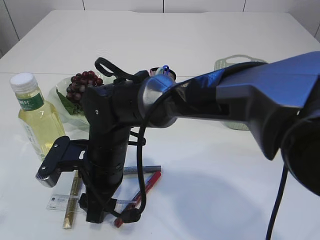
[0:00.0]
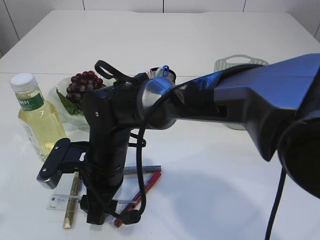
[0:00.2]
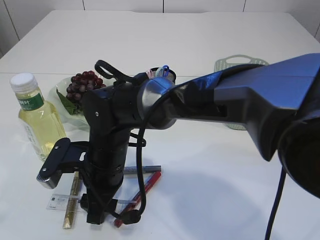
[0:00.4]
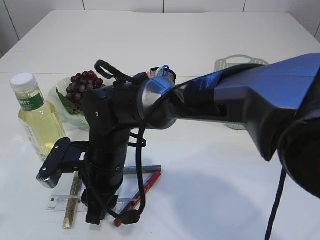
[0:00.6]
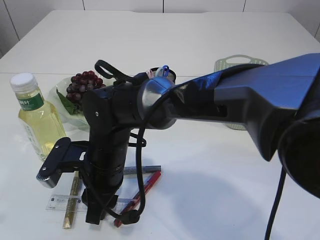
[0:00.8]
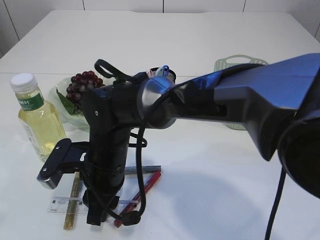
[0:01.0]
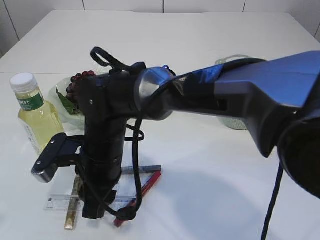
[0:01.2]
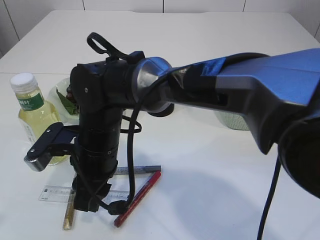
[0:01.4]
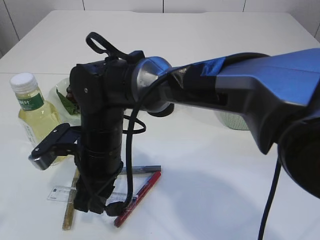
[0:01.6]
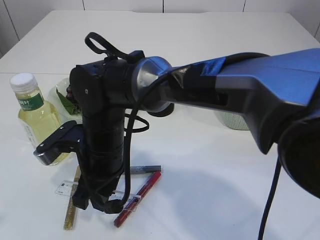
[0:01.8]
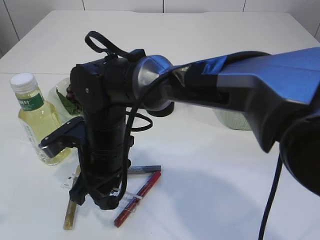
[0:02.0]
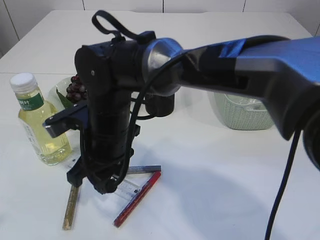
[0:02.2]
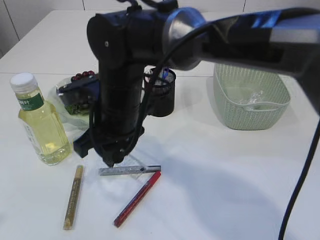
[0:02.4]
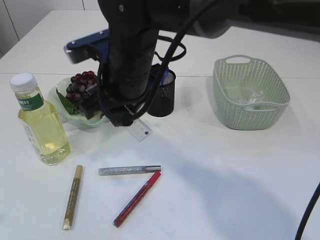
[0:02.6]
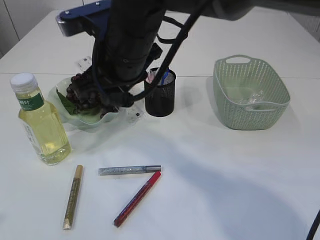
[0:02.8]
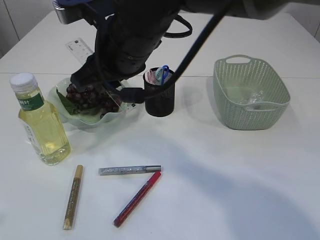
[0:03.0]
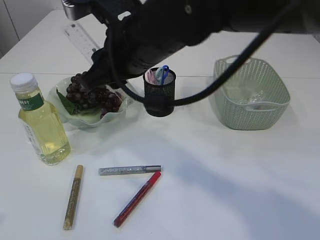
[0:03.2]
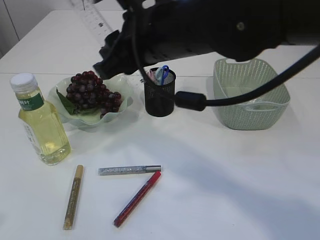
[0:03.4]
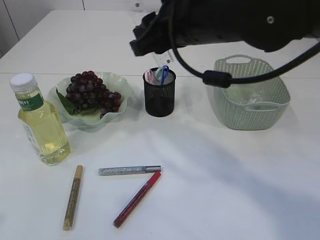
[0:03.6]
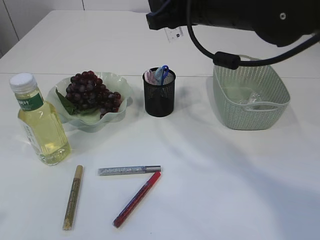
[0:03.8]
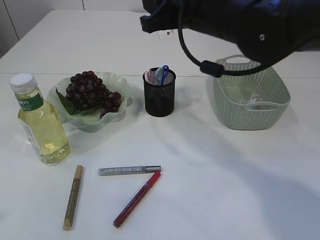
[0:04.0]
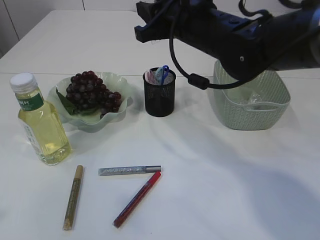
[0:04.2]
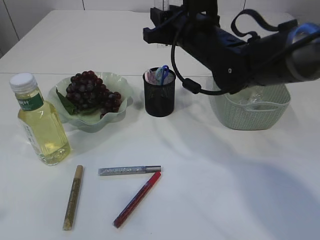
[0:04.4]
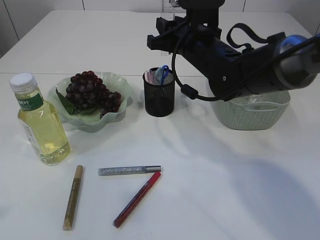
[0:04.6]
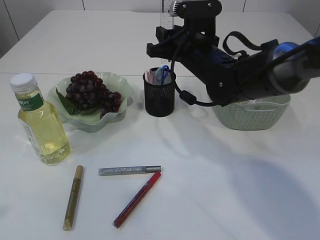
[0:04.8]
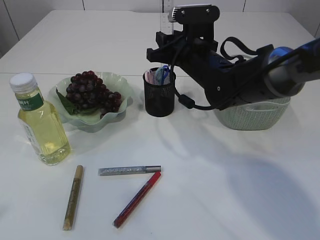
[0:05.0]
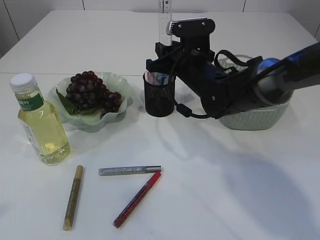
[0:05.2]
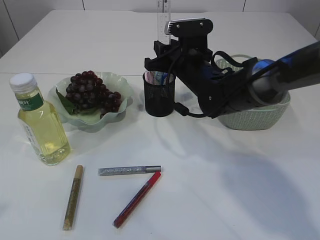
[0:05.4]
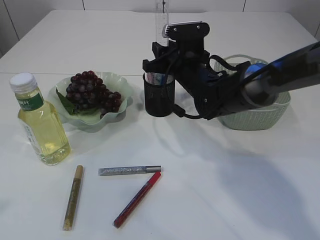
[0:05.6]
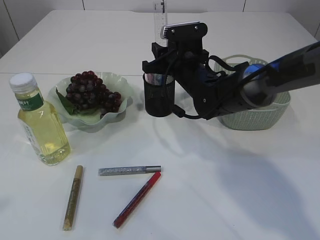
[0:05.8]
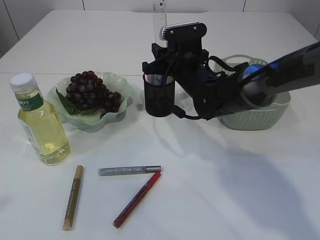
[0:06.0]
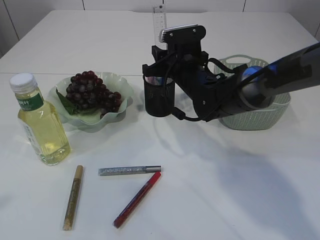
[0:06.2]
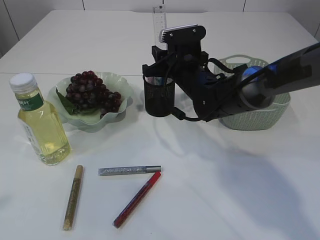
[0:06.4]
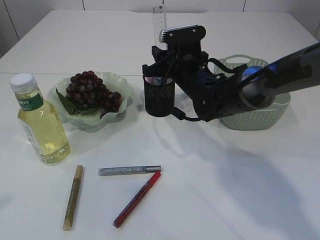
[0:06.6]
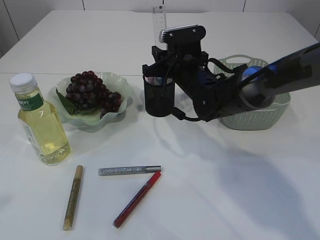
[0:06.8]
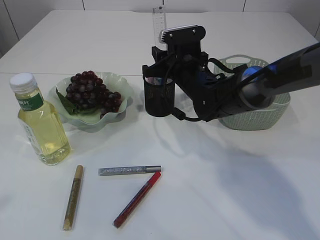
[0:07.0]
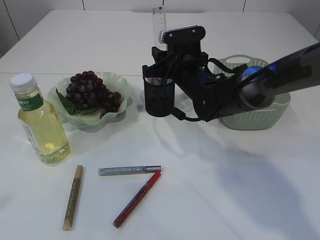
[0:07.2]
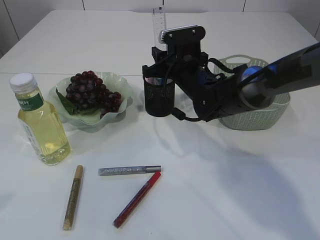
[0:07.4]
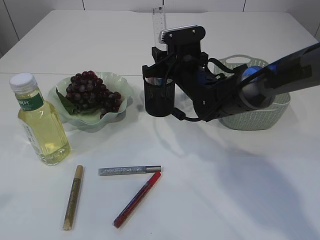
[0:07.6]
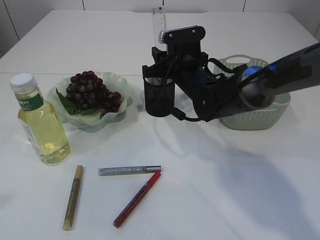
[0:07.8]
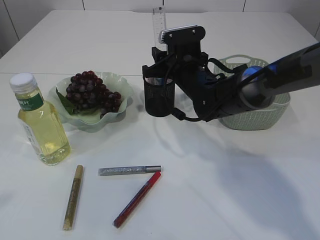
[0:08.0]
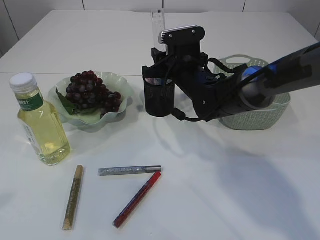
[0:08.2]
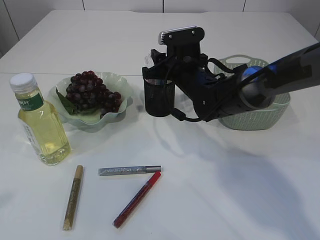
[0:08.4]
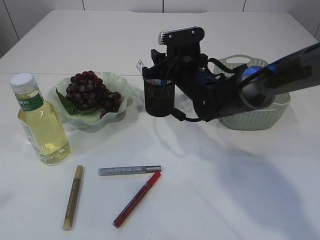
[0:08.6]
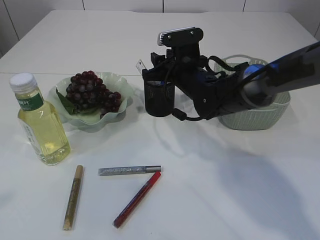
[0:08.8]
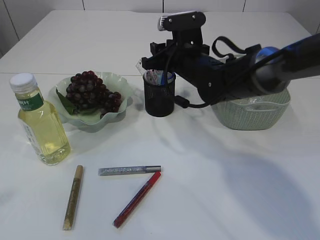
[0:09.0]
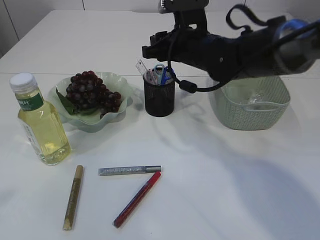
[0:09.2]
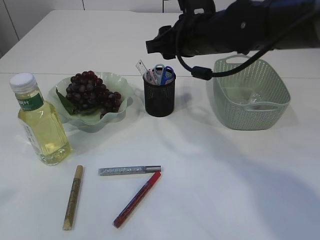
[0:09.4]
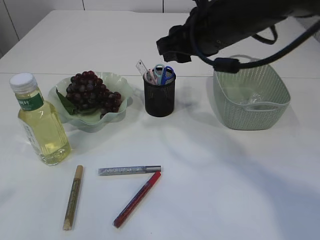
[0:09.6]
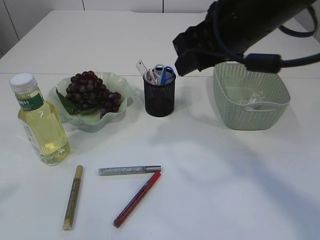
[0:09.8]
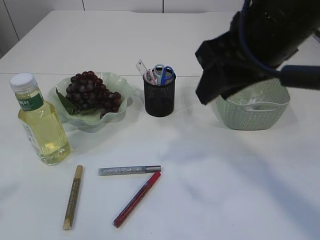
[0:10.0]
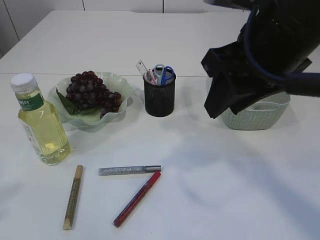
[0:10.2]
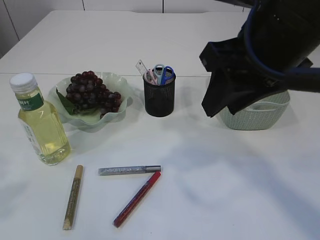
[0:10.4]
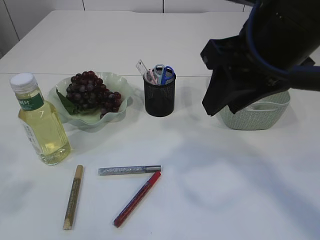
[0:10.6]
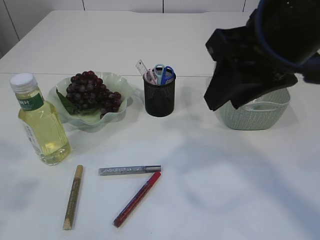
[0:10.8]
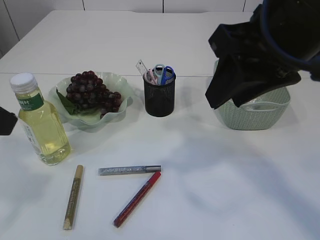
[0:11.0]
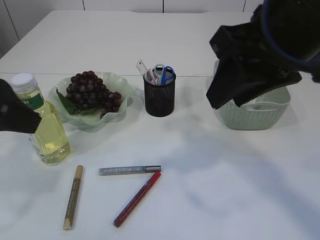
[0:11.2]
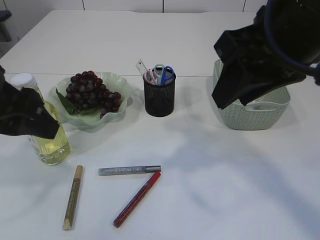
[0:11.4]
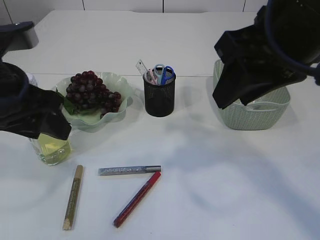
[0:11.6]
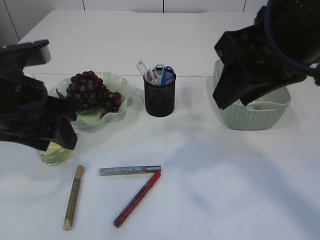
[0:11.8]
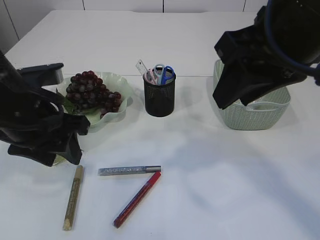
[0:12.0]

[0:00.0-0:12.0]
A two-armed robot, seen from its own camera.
Step, 0:00.0 to 0:02.4: pick up the ruler.
Step, 0:02.6 to 0:09.0: Place the ruler into the pen holder.
0:00.0 to 0:01.6: The right gripper closes.
0:01.6 to 0:03.0: The right gripper heads upward, covering roughly 15 cm.
0:03.0 to 0:04.4: The right gripper travels to the right and forward by about 15 cm.
0:04.4 to 0:06.0: The right gripper shifts about 10 cm downward.
0:06.0 to 0:07.6: Neither gripper changes place.
0:07.6 to 0:09.0: The grippers make only small movements.
0:09.0 to 0:10.4: The right gripper is displaced backward and upward by some 25 cm.
0:10.4 to 0:12.0: The left gripper is displaced downward, forward and to the right by about 20 cm.

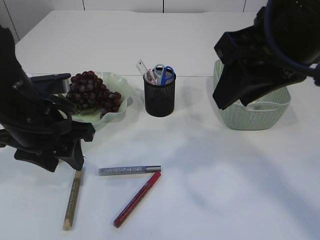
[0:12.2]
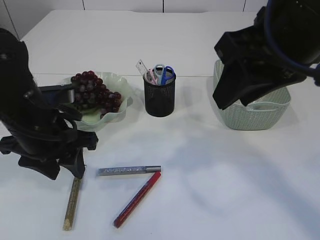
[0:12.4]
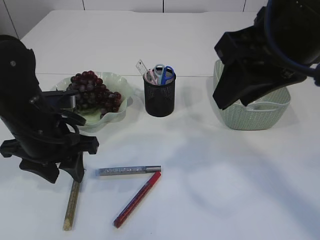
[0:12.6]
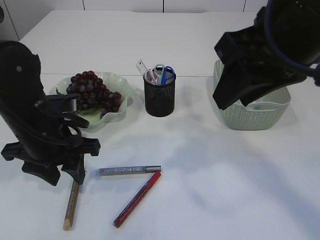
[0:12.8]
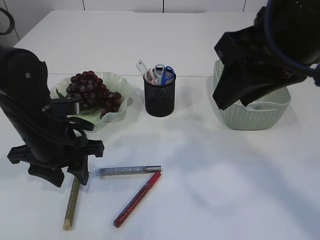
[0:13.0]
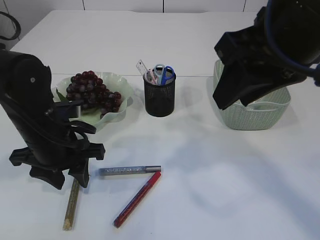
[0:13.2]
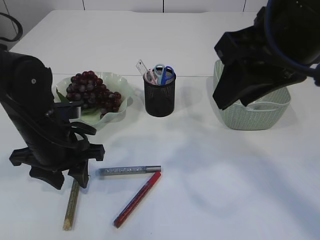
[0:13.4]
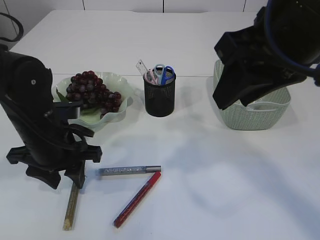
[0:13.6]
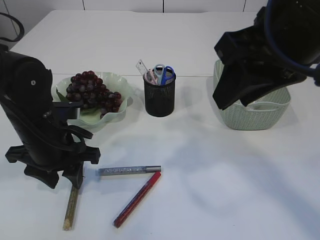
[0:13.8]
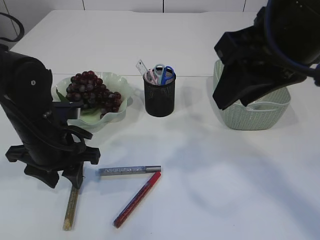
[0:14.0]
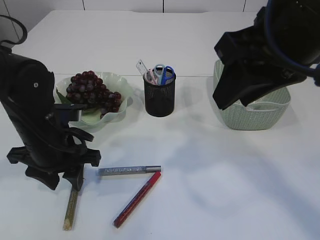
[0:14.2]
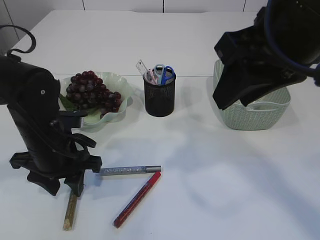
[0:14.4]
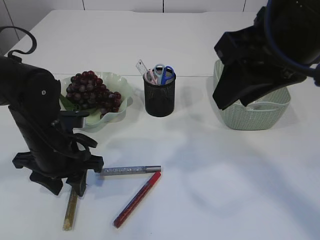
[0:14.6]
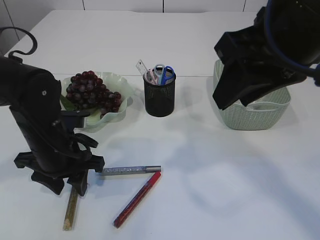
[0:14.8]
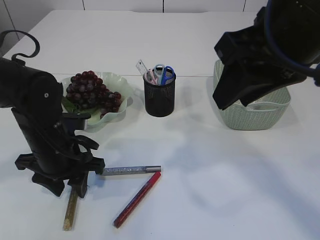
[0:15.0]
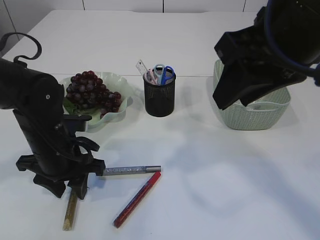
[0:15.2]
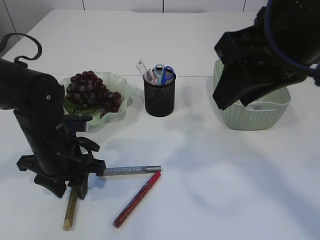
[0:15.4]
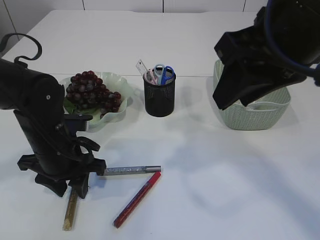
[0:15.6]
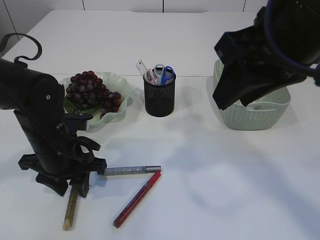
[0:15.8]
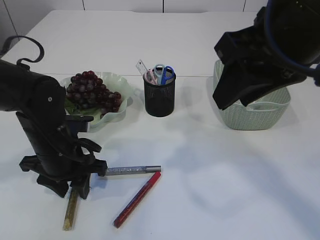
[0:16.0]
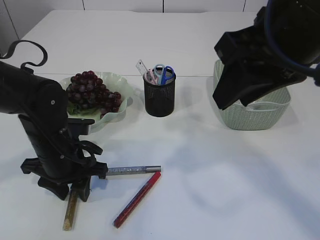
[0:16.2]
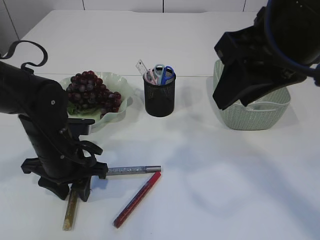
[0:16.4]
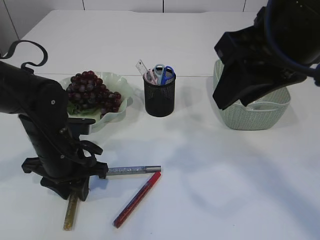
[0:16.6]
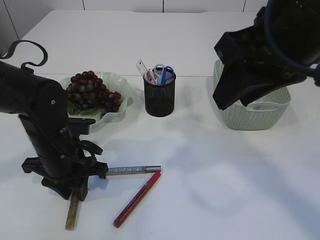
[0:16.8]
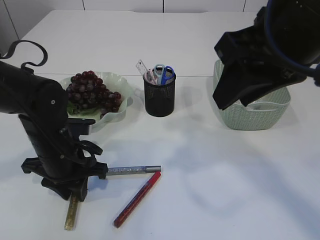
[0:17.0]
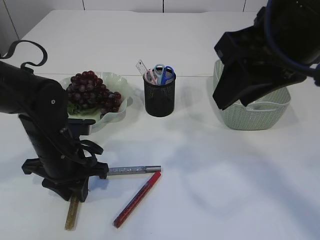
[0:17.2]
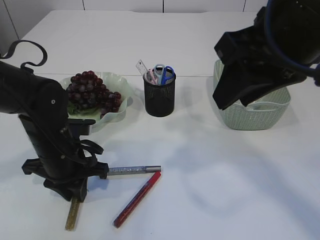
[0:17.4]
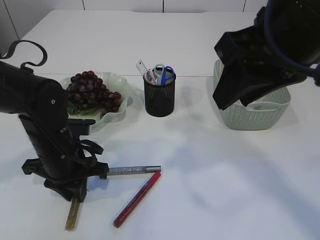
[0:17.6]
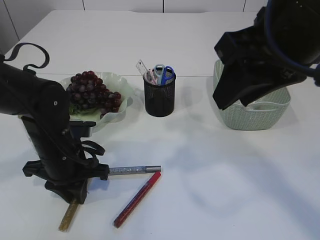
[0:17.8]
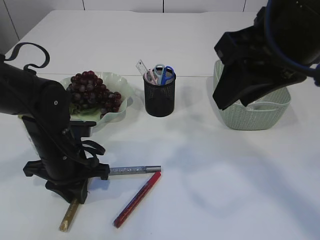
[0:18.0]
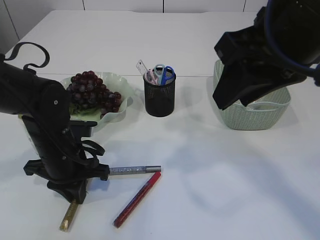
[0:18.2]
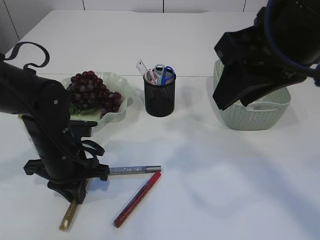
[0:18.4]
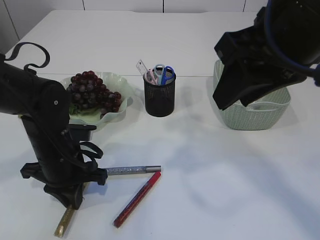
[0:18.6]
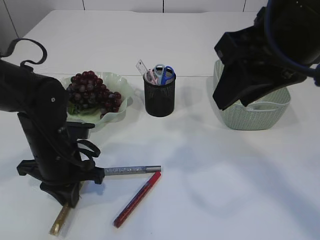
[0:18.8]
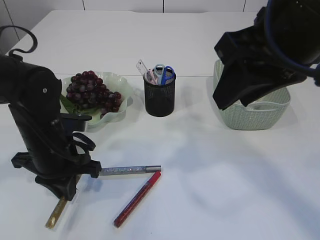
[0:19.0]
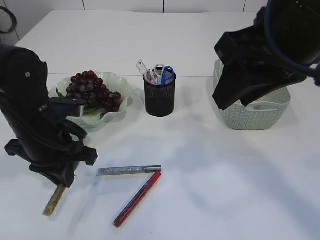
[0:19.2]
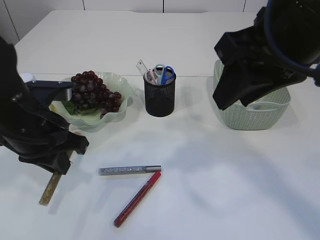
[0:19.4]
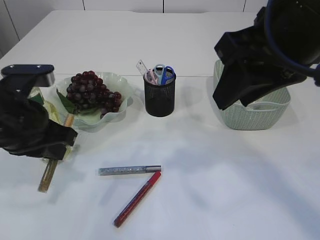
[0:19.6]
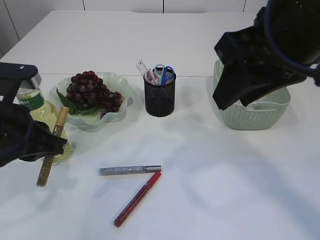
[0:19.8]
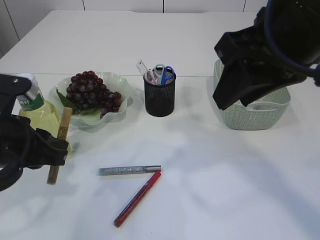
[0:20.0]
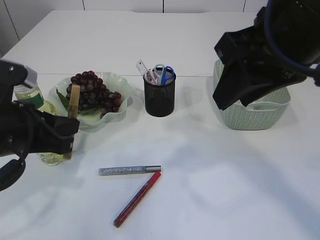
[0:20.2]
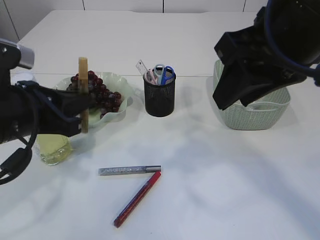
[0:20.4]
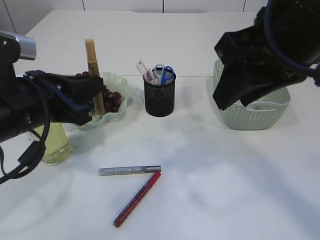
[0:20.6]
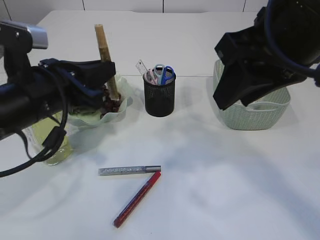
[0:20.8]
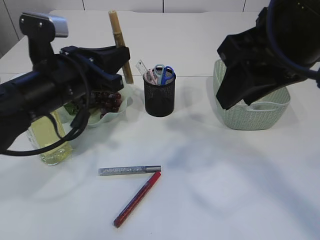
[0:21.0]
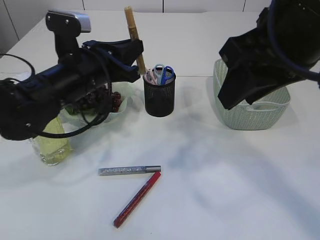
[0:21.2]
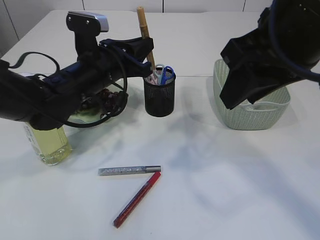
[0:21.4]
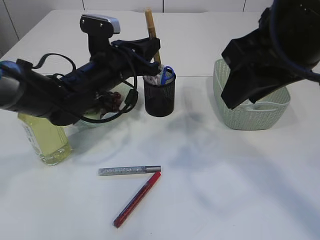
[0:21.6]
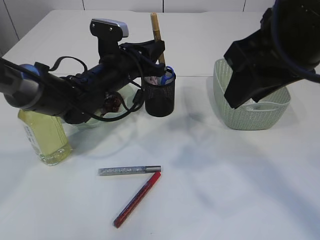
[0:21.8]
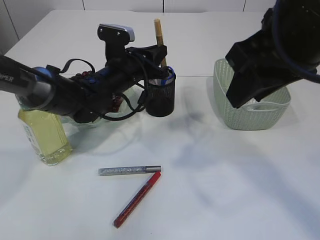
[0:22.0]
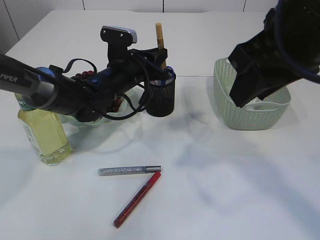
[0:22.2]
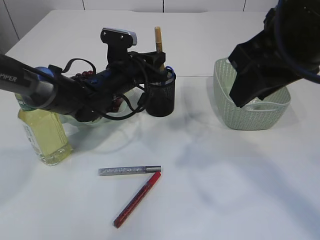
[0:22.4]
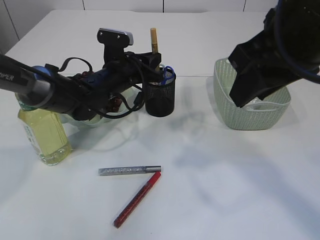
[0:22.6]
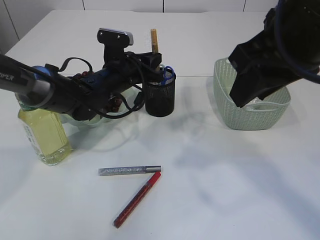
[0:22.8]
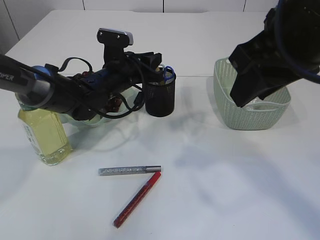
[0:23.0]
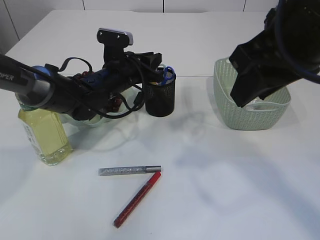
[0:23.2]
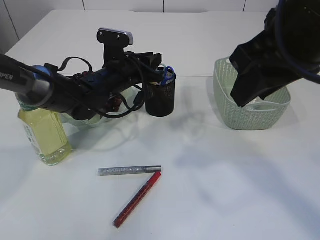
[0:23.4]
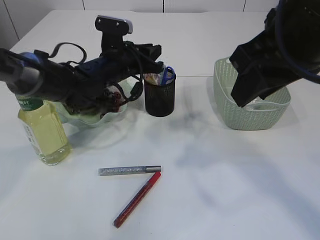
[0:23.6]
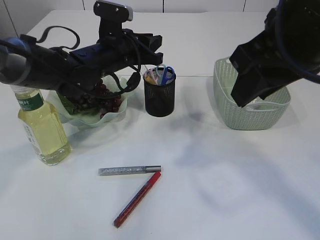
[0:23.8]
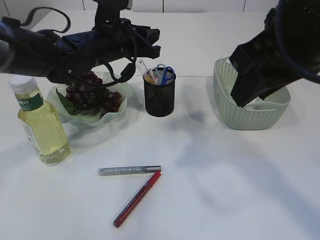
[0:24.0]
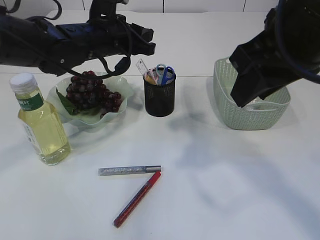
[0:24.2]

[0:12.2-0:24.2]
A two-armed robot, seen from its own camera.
Step, 0:12.2 to 0:19.4: pick up the yellow glue.
0:12.2 to 0:13.8: The left gripper moves downward, about 5 cm.
0:13.8 to 0:15.2: The grippers move only a little.
0:15.2 to 0:16.6: Both grippers stay put.
0:16.6 to 0:18.2: The left gripper closes.
0:18.2 to 0:19.8: The left gripper travels upward and backward by some 15 cm.
0:19.8 to 0:21.2: The left gripper travels forward and to the right by approximately 10 cm.
0:21.2 to 0:22.6: The left gripper is displaced forward and downward by some 10 cm.
0:22.6 to 0:24.2: The left gripper is displaced upward by about 10 cm.
